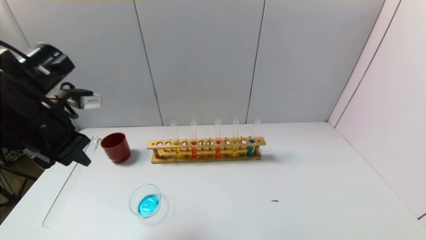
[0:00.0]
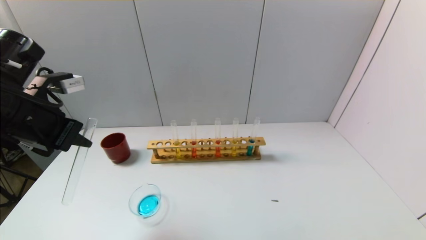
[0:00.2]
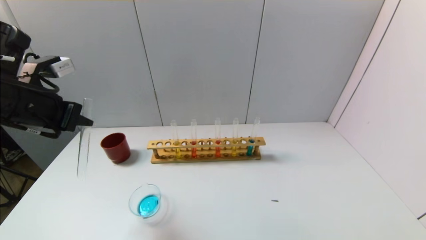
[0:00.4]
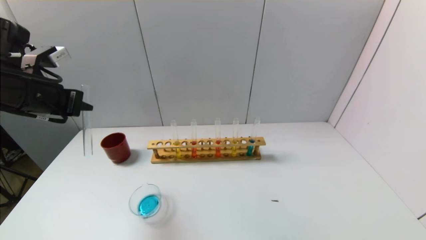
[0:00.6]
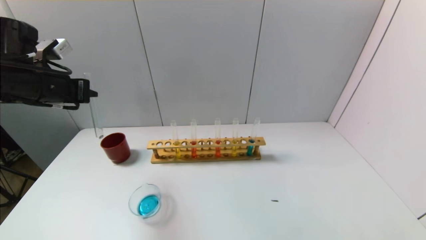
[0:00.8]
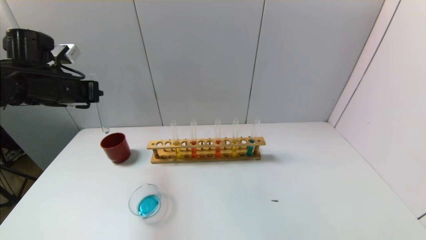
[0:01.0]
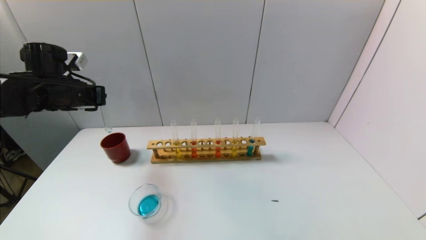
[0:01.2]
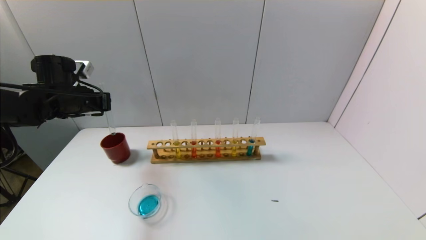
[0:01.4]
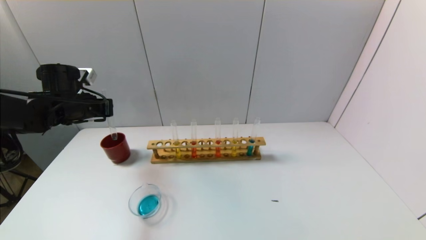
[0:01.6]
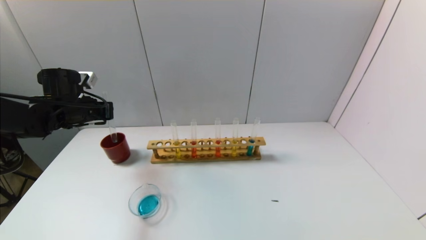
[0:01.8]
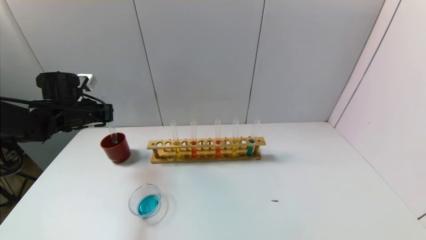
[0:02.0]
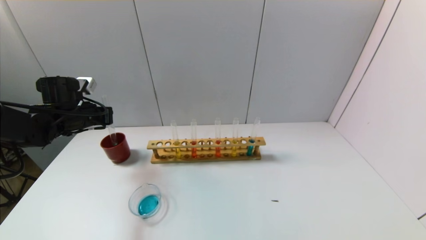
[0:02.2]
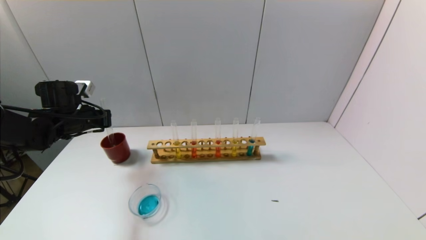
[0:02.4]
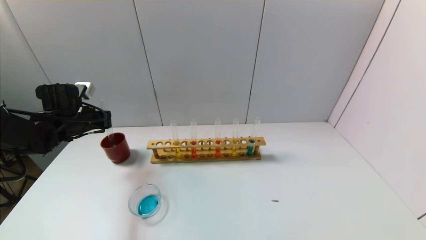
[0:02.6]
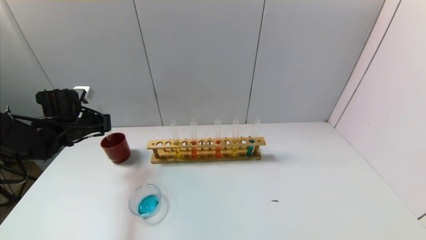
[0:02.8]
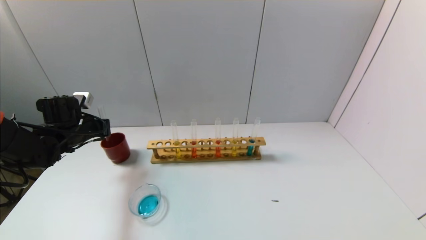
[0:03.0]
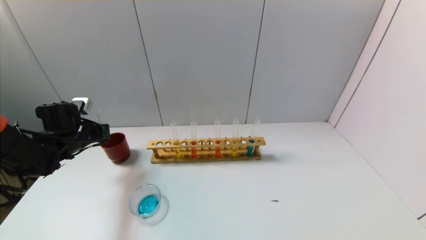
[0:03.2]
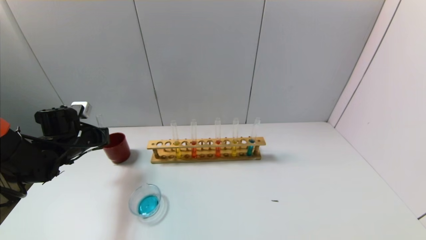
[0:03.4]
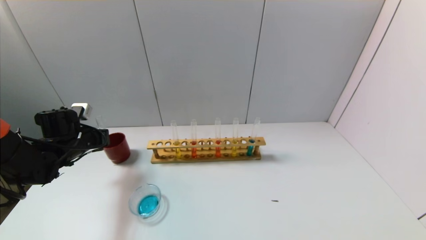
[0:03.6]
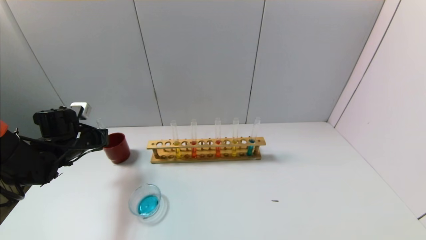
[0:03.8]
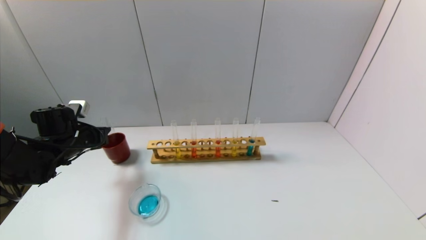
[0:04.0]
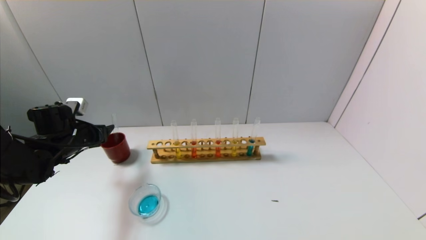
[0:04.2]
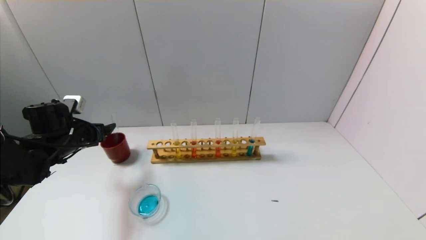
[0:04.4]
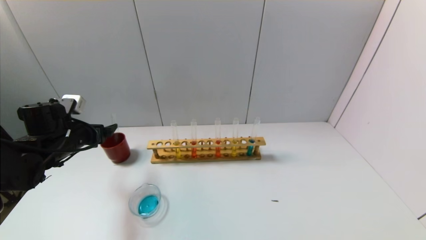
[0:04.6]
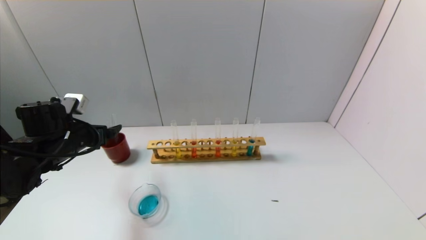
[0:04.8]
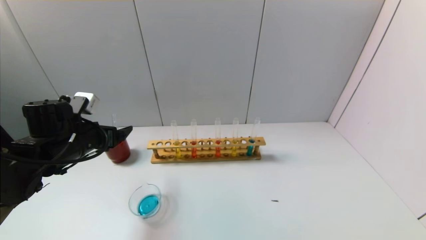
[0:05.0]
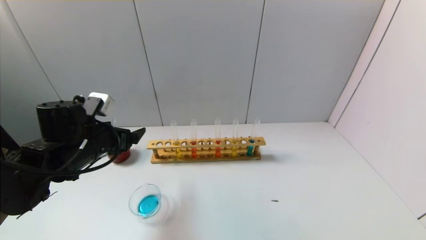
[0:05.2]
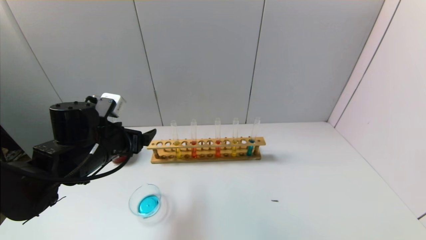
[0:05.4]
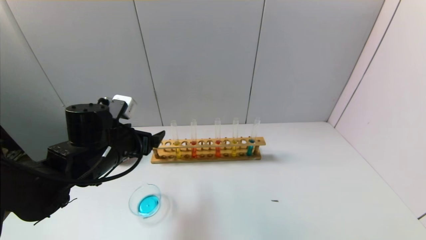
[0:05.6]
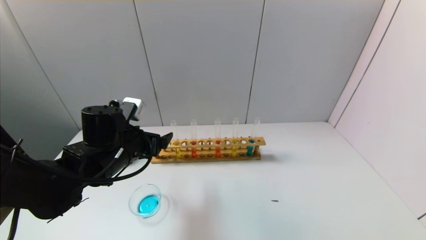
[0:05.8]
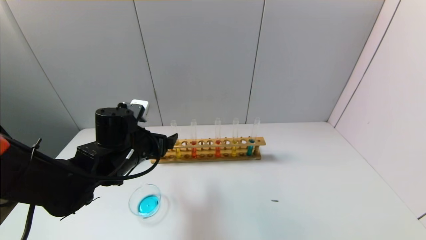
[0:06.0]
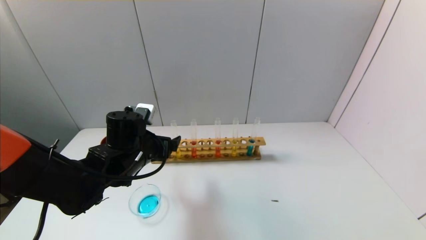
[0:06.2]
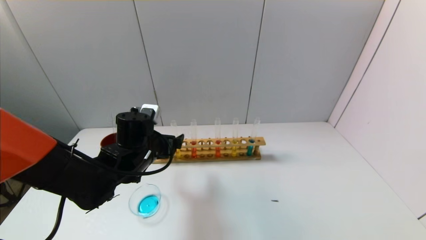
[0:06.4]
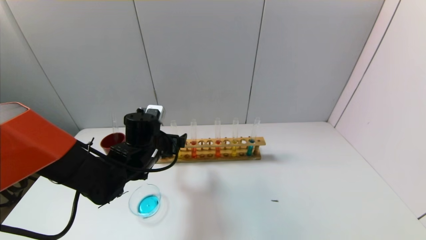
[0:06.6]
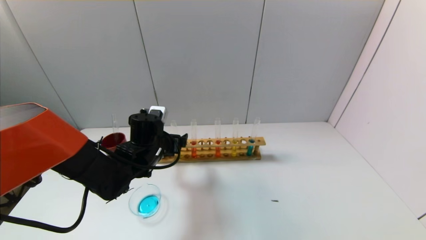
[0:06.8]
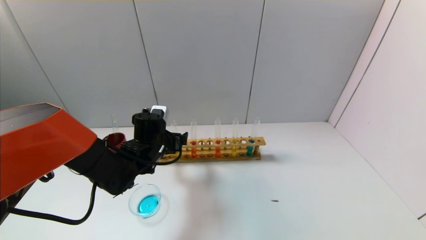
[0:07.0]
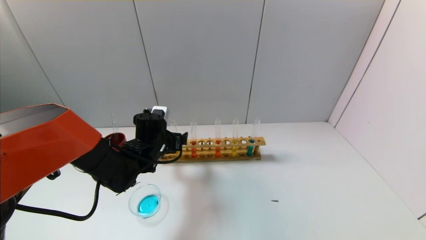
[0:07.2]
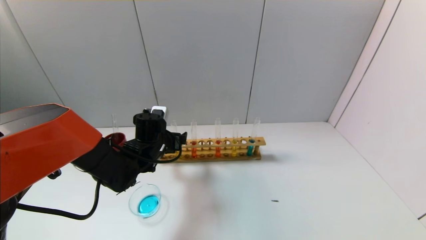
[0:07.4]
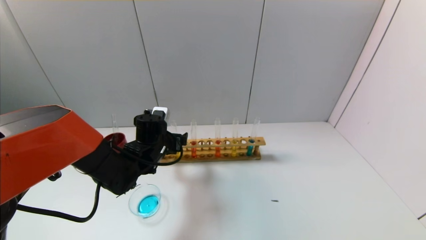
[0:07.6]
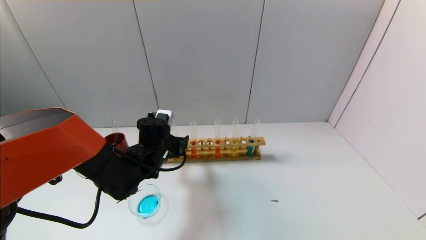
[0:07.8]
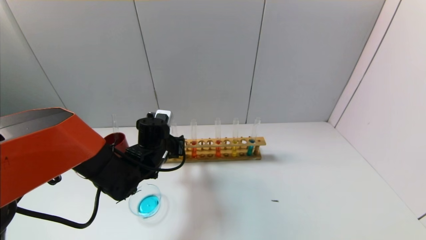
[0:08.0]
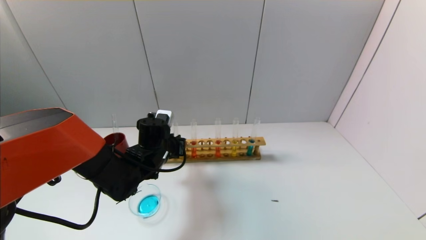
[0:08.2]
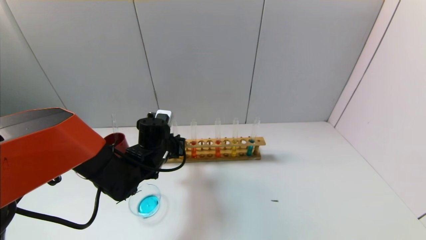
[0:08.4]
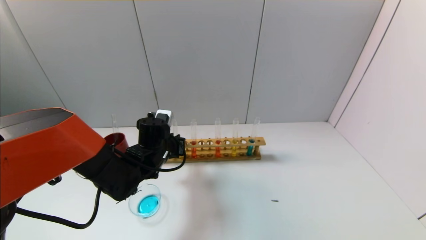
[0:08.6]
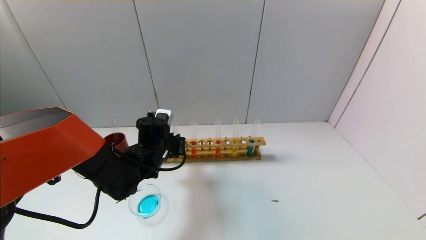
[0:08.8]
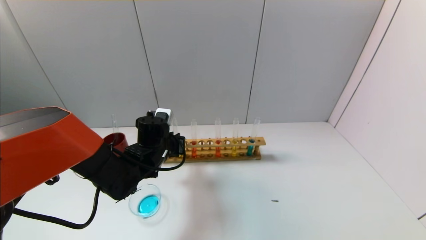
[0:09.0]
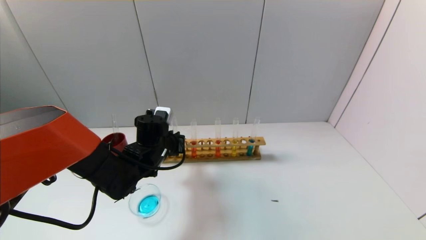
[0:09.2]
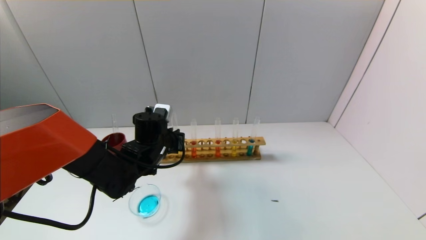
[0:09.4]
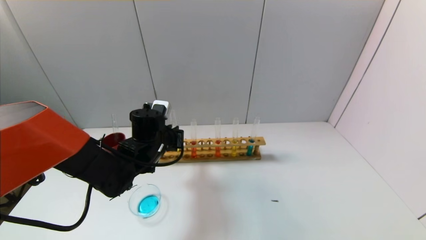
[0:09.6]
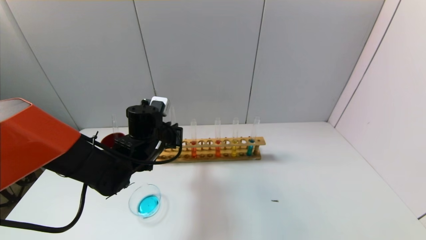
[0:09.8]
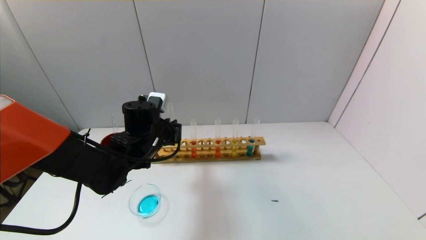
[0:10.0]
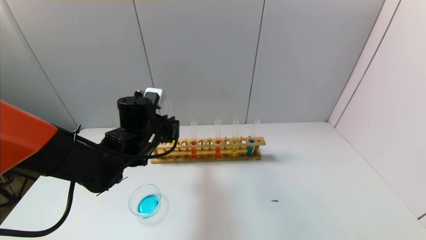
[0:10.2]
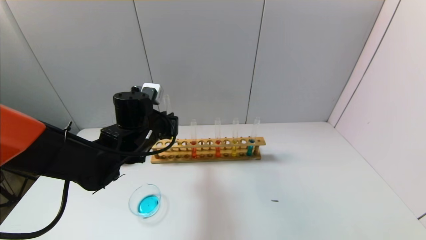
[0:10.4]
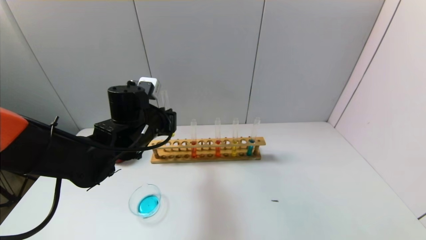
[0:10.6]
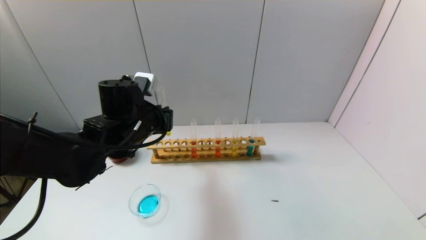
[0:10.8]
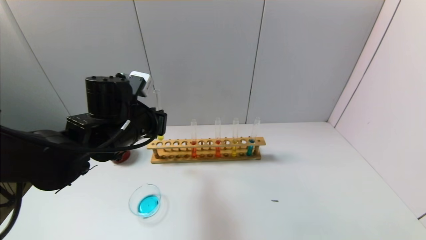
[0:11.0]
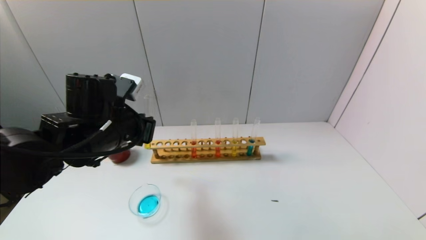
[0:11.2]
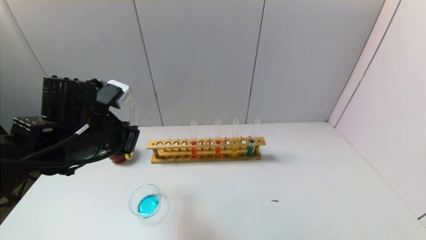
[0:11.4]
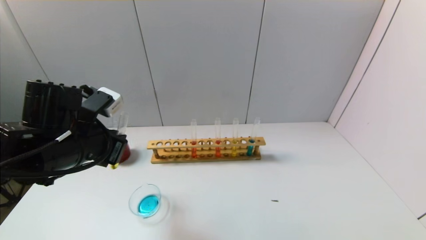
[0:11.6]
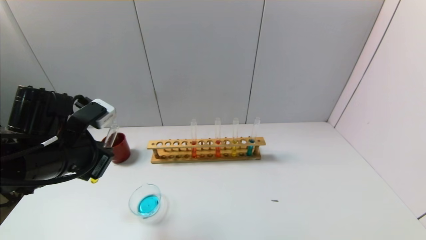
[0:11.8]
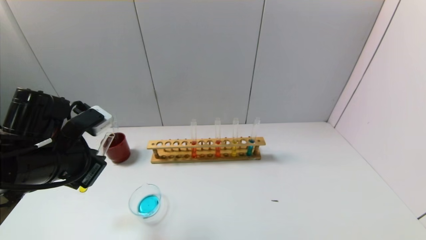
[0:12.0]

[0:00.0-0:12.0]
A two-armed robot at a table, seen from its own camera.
Task of the whole recording: pick up the test tube with yellow pigment and the test tube with blue pigment by grippers and pour them into the beaker.
Step, 0:00.0 to 0:04.2: Place the test tube into the brown cup with the left gripper.
Step, 0:04.4 to 0:08.4: Grasp the yellow reagent with the left gripper.
0:00.0 to 0:01.6: The left gripper goes some 15 cm forward and downward.
0:01.6 to 0:03.0: The left gripper shifts roughly 5 cm downward.
0:03.0 to 0:04.4: The left gripper opens its fingers.
0:04.4 to 0:06.0: The left gripper travels to the right by about 15 cm.
0:06.0 to 0:07.6: The left gripper heads forward and downward, covering some 10 cm.
0:07.6 to 0:09.0: The left gripper closes.
0:09.0 to 0:10.4: The left gripper is displaced upward by roughly 5 cm.
0:10.4 to 0:12.0: The left gripper is displaced backward and to the left by approximately 15 cm.

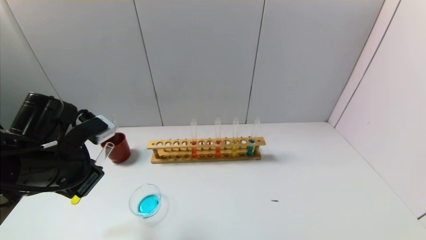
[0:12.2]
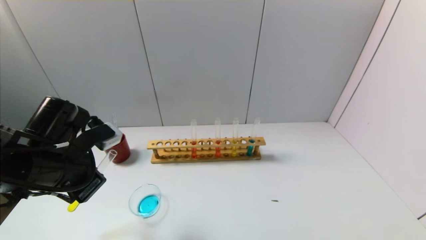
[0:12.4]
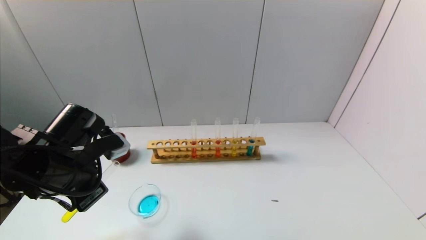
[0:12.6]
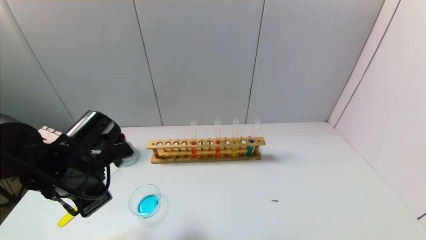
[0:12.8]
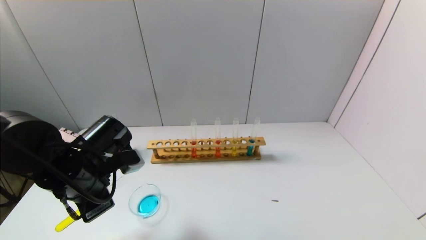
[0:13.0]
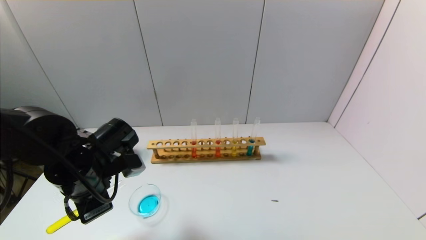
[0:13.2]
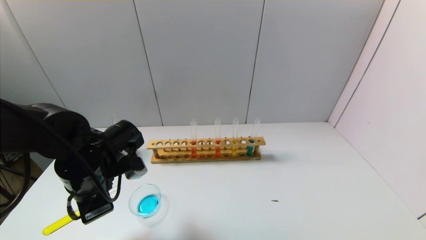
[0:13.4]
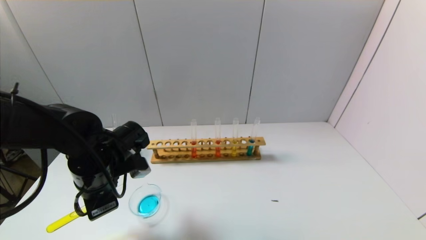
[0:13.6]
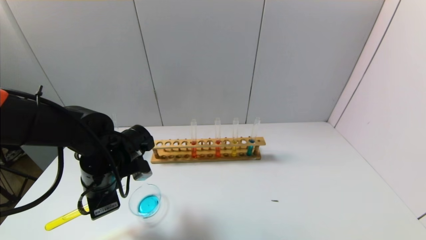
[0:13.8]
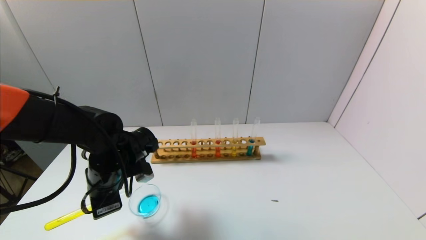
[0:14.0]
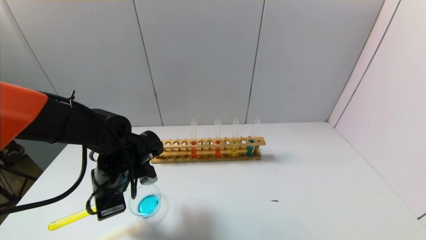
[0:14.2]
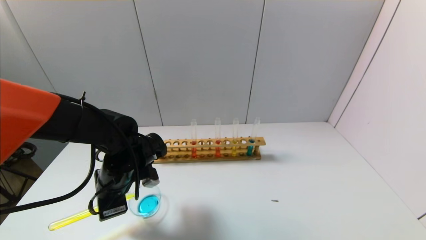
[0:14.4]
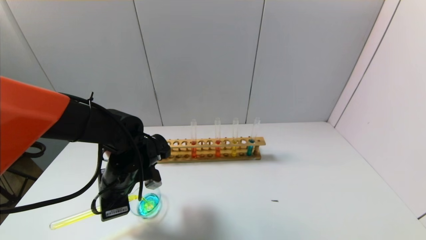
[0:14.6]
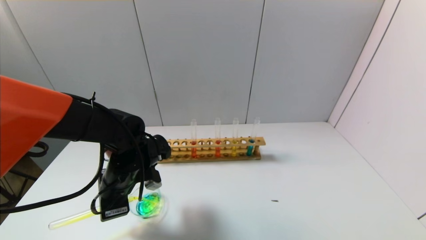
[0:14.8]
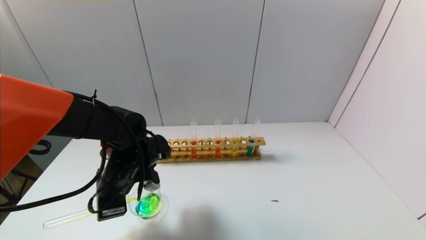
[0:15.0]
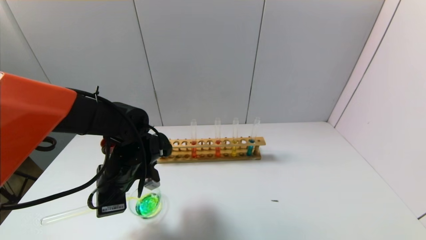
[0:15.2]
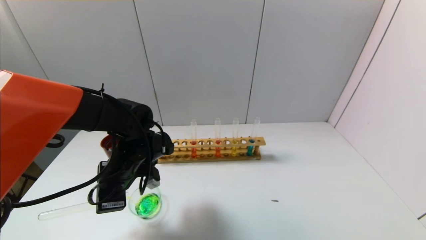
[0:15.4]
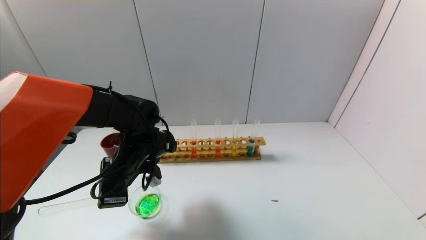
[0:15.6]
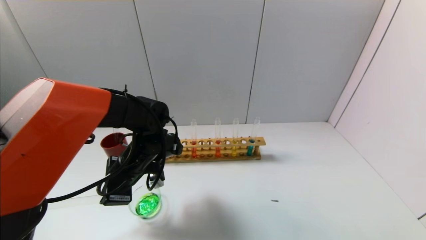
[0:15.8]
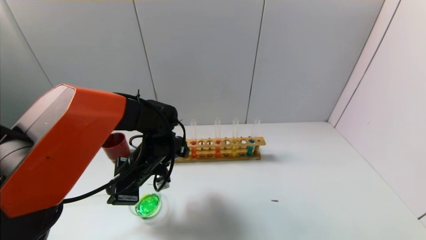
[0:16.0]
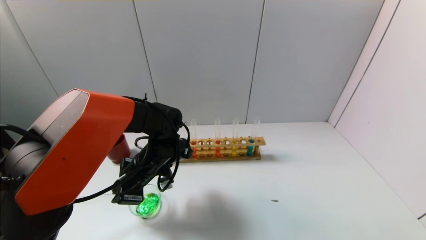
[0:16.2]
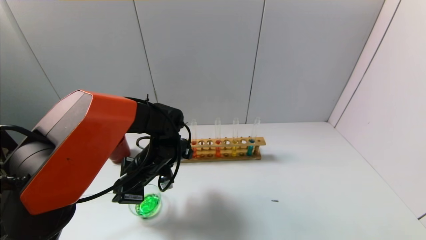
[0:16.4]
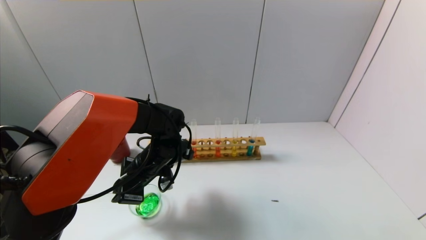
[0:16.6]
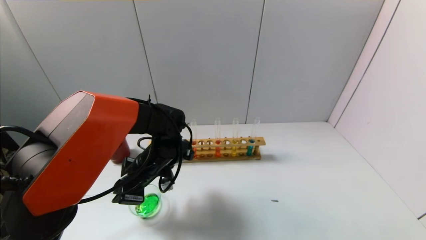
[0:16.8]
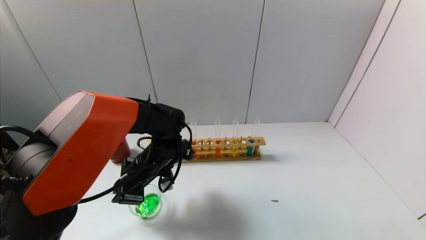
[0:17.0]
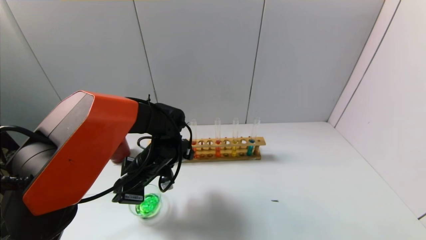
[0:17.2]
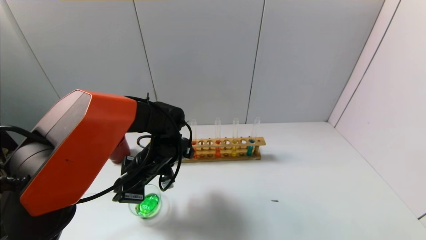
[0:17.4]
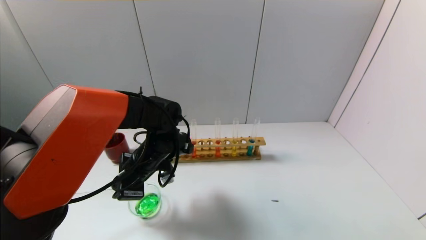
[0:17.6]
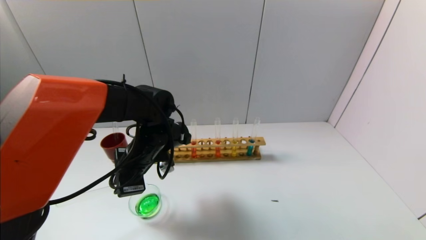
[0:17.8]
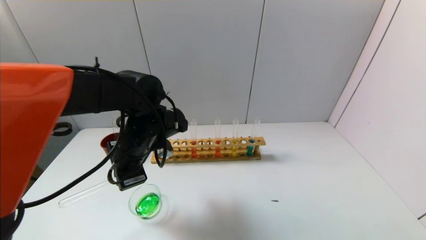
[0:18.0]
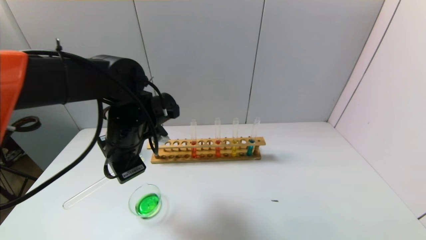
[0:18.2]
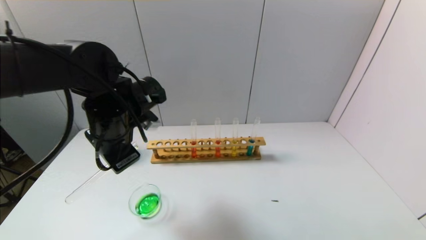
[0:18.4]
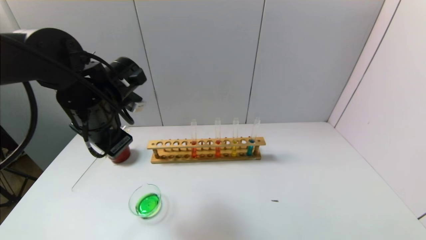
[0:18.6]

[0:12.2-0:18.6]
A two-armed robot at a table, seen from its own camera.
Task of the whole recording: pick up the test tube with yellow pigment and the test tube with blue pigment by grippers and pour them into the beaker.
Step, 0:12.2 to 0:18.0: Pour the yellow reagent into the graduated cylinder with the left gripper.
0:12.2 to 0:13.8: The left gripper goes roughly 5 cm downward.
0:15.4 to 0:17.0: The left gripper shifts by about 5 cm.
0:17.0 to 0:18.6: The left gripper heads upward and to the left, covering roughly 15 cm.
